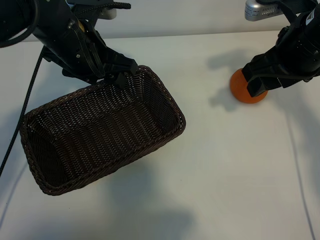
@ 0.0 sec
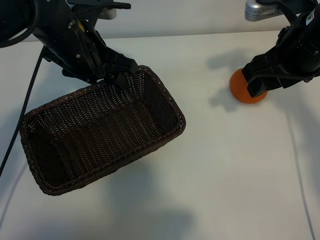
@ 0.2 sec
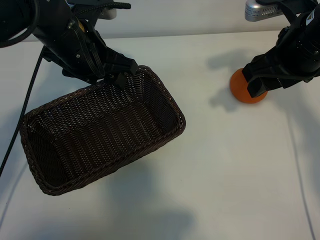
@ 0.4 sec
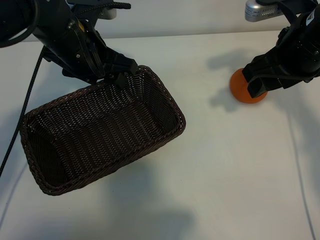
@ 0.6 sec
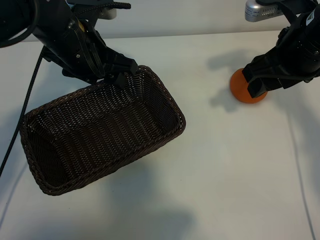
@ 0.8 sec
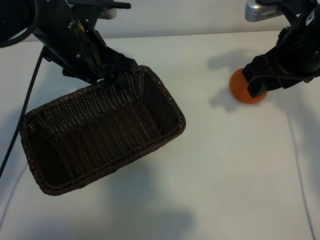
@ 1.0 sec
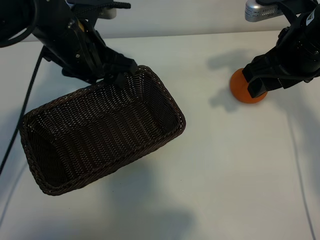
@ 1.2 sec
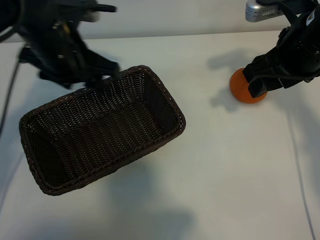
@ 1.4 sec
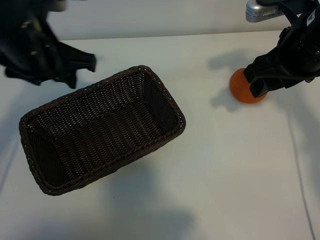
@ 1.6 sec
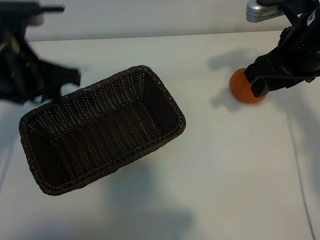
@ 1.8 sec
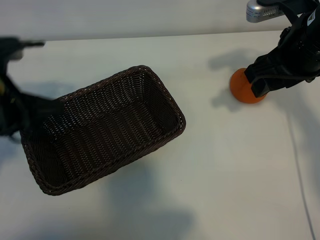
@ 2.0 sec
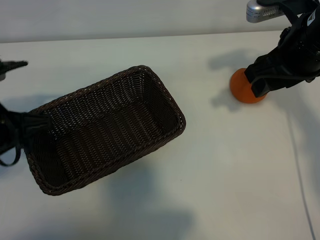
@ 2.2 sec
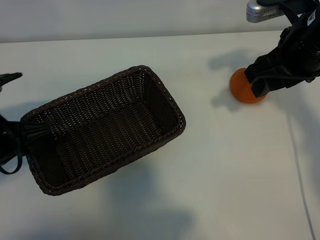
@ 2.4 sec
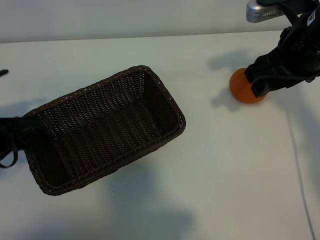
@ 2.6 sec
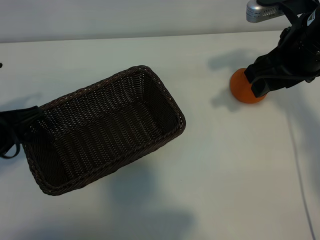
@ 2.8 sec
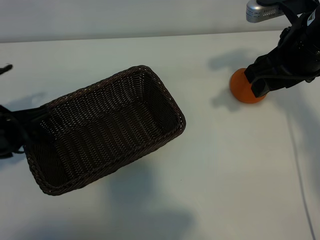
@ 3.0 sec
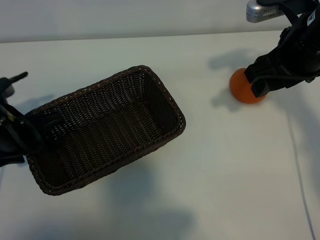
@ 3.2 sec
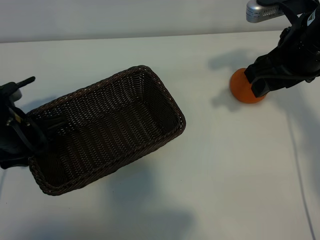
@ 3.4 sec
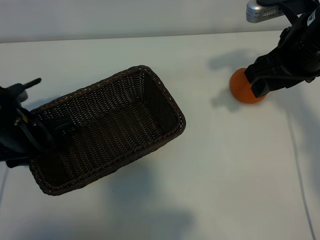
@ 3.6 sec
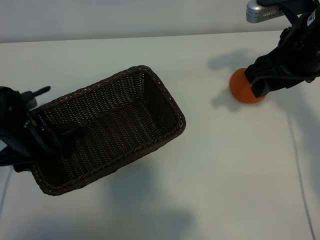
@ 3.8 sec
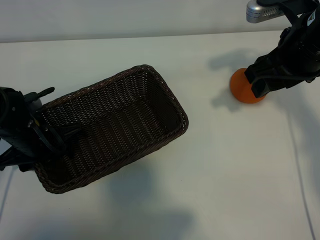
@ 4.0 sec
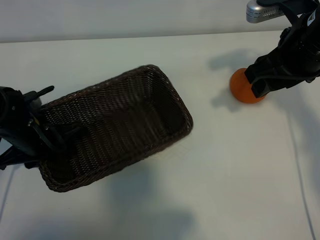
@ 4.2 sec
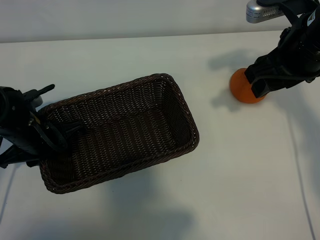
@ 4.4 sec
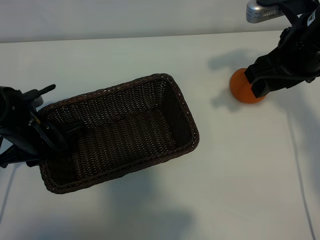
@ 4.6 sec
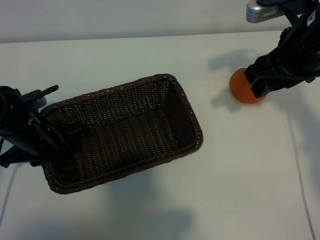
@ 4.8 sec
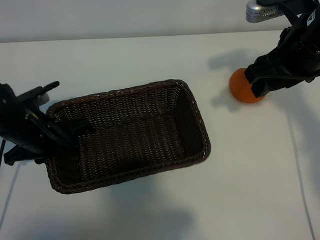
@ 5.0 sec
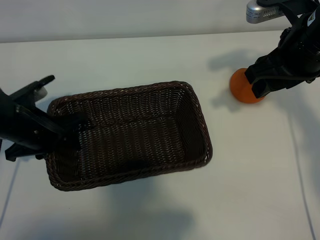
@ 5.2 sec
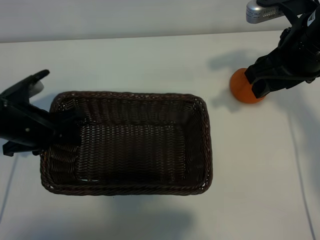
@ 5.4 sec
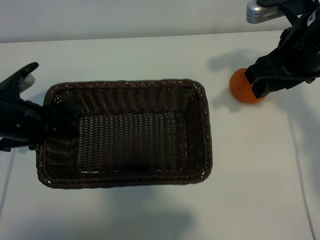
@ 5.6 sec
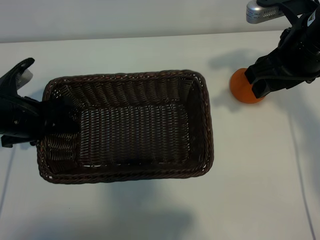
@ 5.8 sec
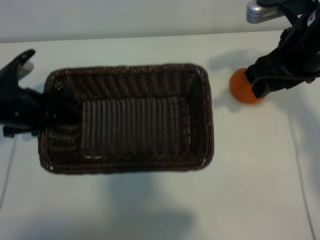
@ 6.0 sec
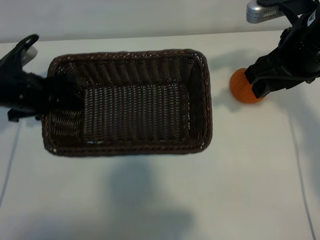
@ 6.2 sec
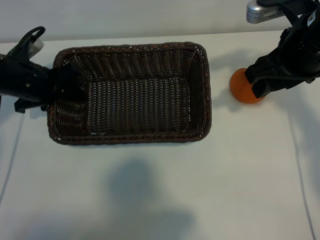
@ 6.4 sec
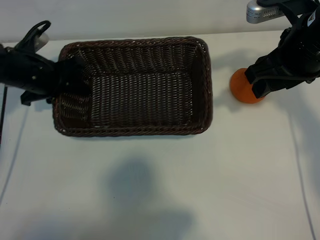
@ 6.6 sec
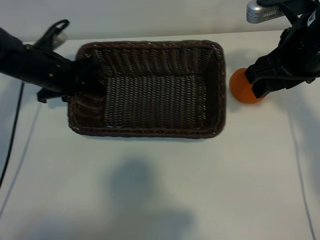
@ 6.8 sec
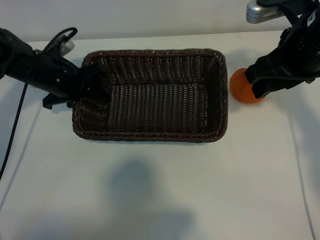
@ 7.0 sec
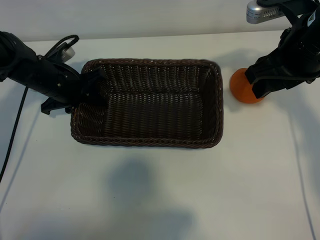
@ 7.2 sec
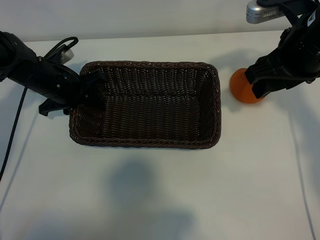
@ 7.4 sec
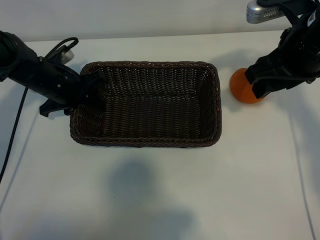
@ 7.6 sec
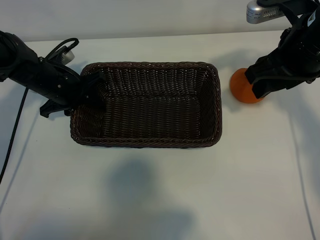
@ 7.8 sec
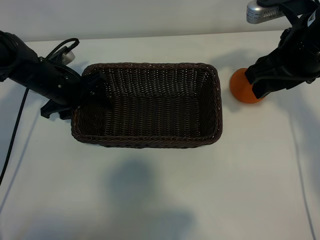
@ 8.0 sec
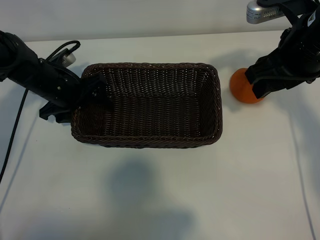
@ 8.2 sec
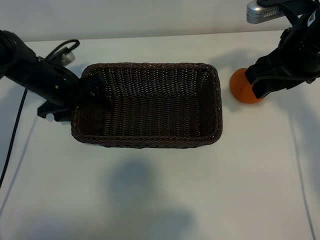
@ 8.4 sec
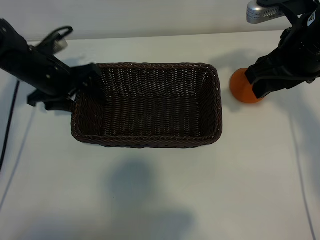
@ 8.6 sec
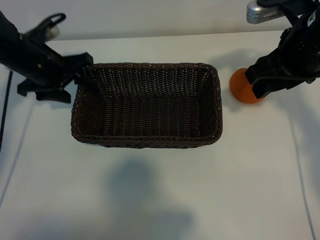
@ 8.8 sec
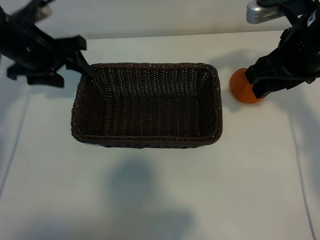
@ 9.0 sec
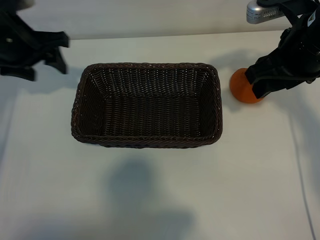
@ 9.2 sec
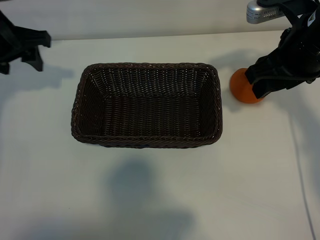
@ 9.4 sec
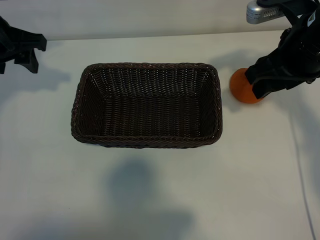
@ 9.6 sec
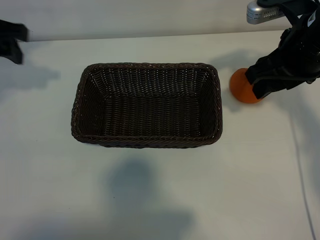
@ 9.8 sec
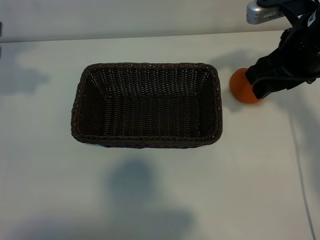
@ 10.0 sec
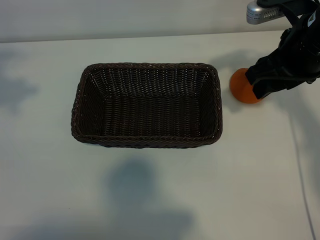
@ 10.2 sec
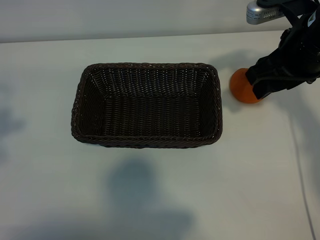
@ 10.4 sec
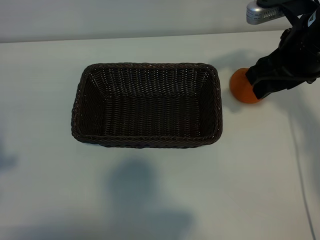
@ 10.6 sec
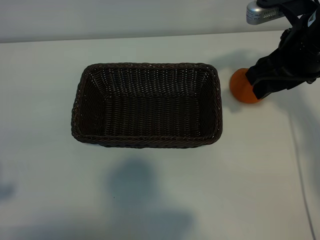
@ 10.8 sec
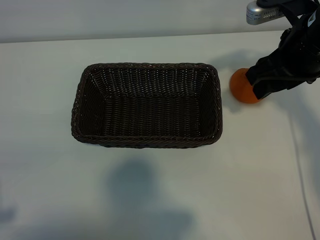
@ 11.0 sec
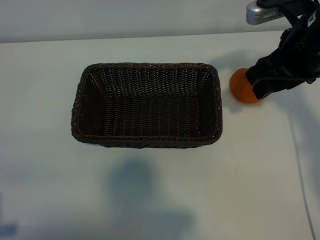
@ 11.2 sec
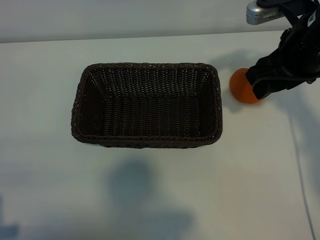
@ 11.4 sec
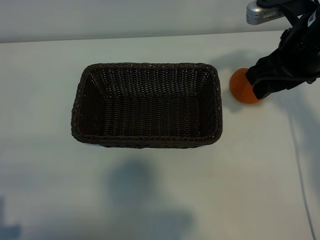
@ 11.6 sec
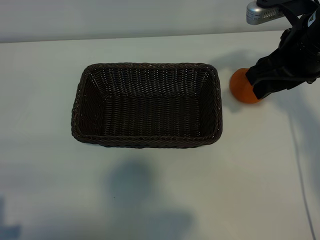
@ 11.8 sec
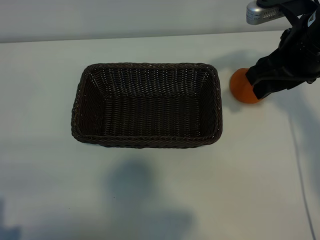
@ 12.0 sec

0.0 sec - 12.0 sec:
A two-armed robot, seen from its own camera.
Task of the whole recording: pick up the orange and put it into the basket.
Step, 1.2 sec - 4.2 sec: Grasp the basket with left gripper.
Step, 4.6 sec - 7.8 sec: Place the basket in the center of view with left gripper.

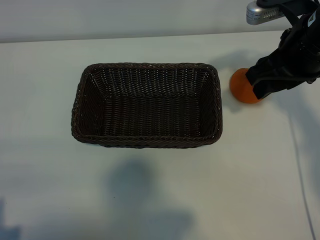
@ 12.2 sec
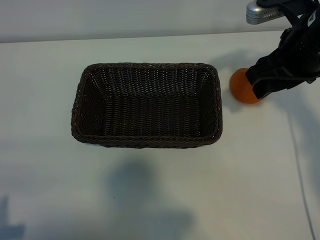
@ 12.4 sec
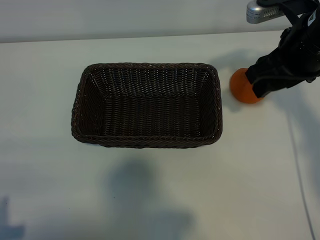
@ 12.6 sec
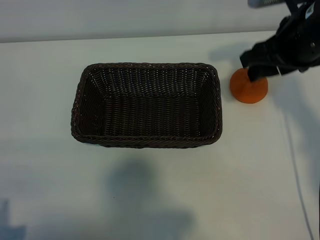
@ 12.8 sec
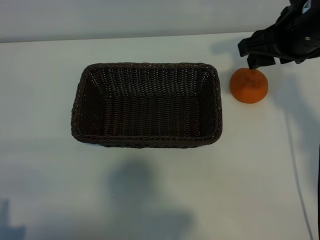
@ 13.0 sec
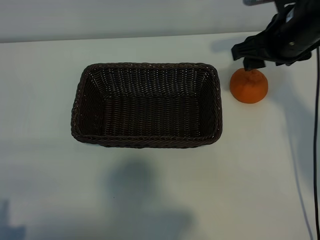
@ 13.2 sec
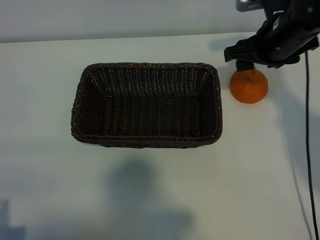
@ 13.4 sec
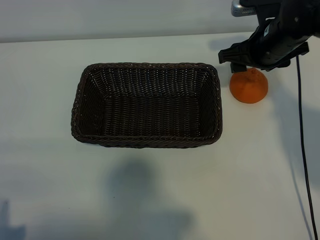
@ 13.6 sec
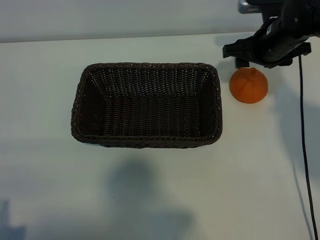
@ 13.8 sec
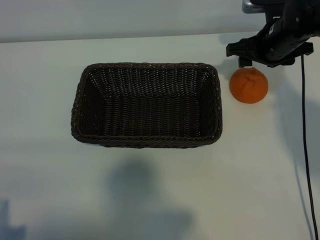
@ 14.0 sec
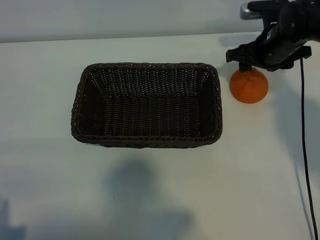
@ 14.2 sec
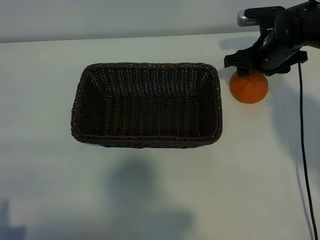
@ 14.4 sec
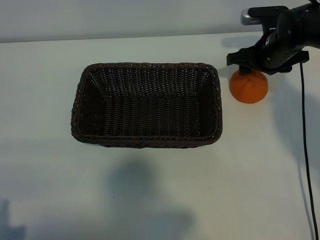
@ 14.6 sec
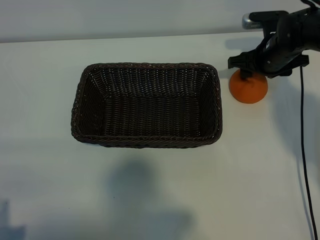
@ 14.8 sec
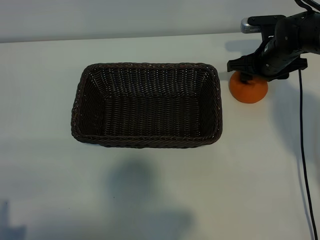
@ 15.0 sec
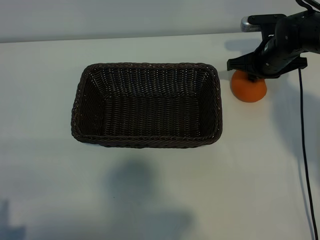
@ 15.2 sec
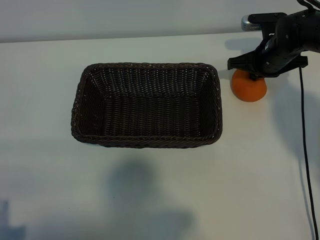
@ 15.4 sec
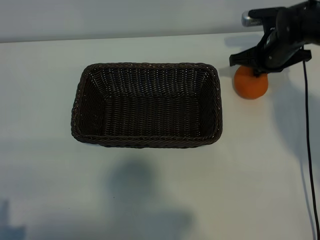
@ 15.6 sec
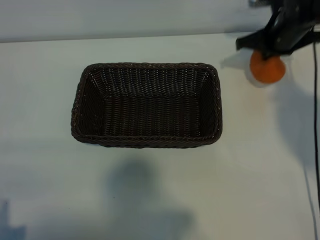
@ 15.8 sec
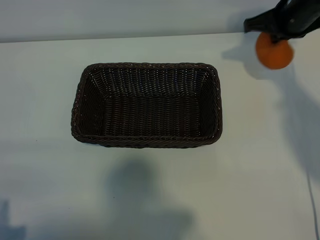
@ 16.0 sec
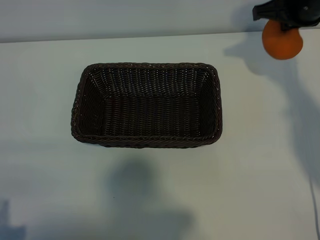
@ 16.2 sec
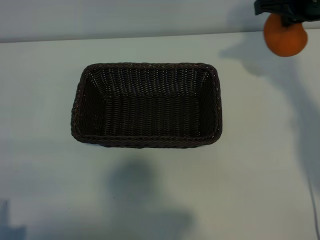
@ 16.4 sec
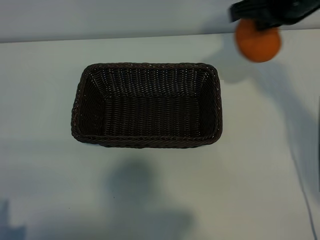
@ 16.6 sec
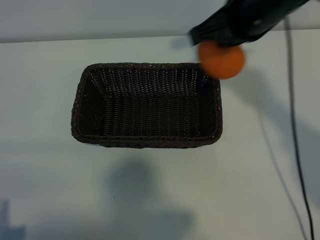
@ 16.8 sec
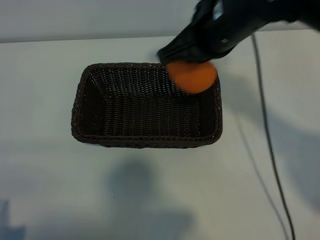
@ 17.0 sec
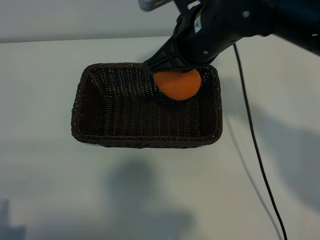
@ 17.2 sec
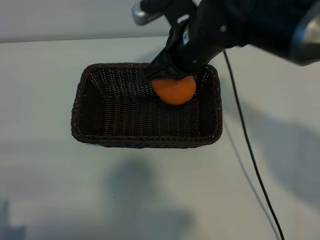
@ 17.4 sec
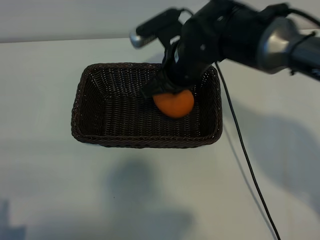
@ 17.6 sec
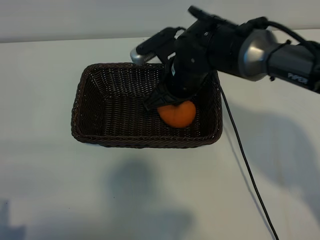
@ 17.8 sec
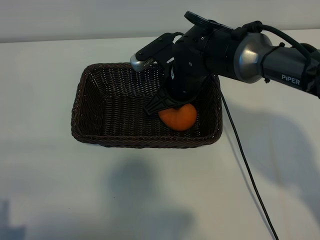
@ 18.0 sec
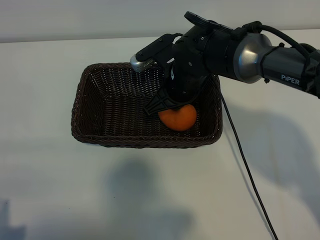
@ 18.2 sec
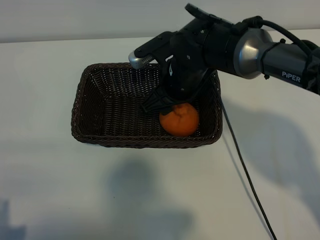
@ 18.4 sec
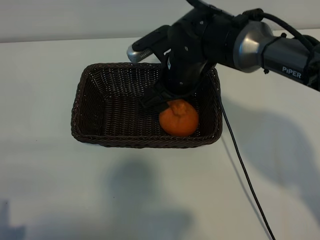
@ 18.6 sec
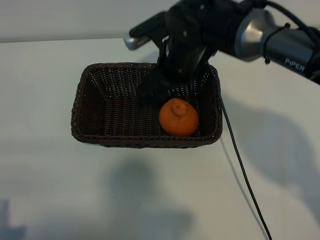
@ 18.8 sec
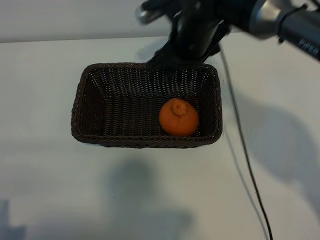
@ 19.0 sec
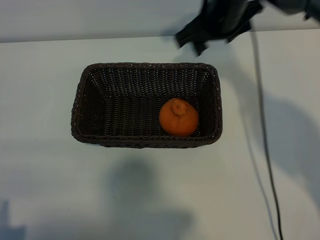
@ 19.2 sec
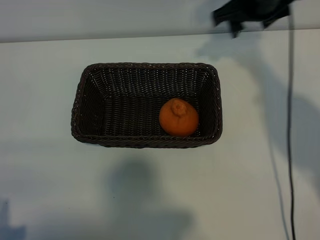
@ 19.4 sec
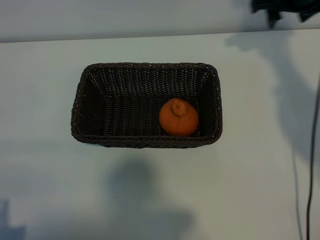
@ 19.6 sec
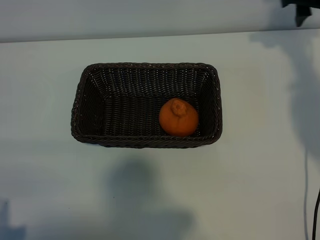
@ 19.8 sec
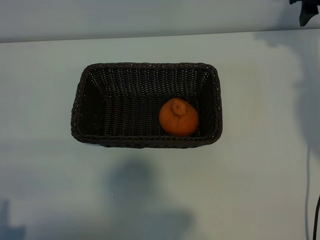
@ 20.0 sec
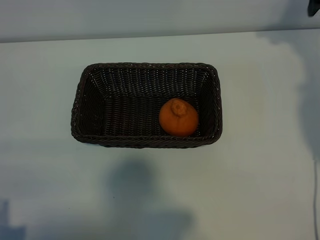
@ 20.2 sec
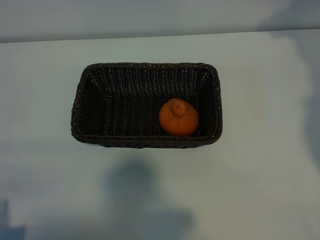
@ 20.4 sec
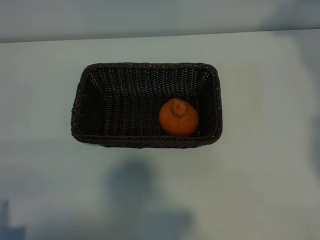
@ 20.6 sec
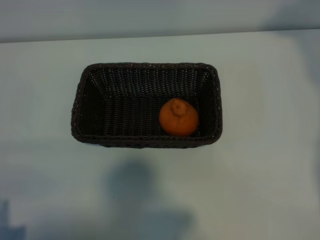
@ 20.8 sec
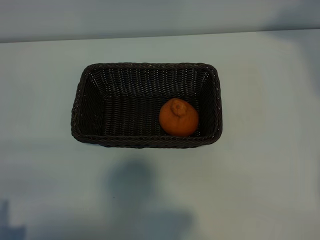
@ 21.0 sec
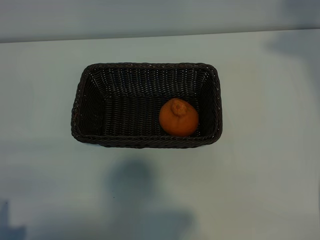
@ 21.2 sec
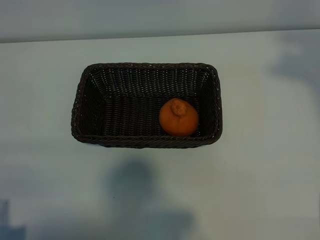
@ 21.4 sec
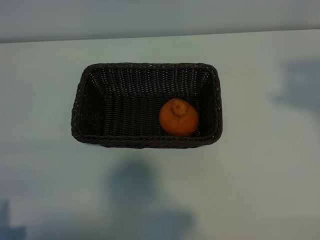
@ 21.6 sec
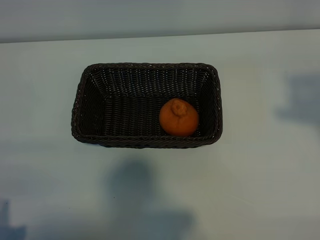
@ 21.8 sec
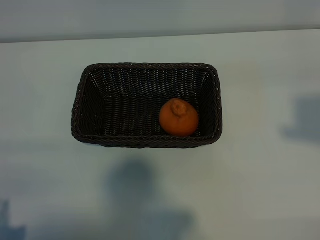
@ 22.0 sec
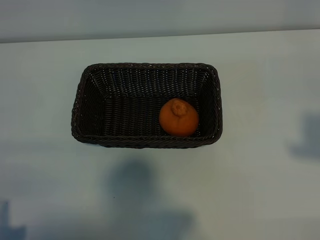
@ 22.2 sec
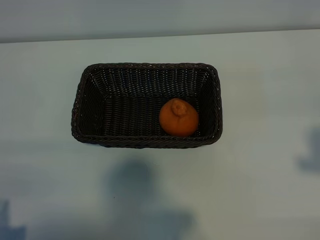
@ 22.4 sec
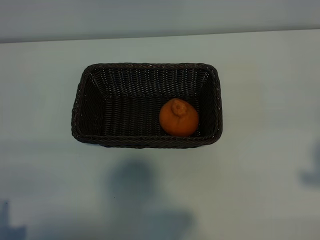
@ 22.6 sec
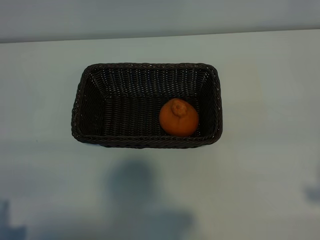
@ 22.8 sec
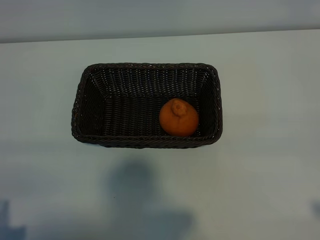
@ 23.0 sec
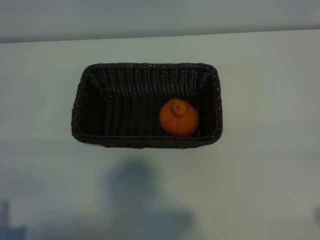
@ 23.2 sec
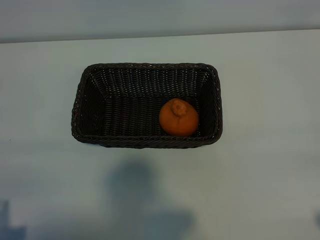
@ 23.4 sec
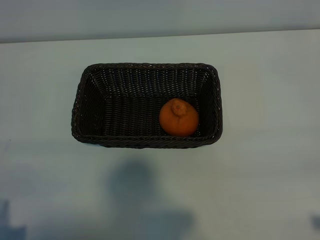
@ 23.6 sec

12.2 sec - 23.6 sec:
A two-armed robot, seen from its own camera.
Task of the whole recording: pick up the orange and put it into the basket.
Step, 12.2 sec - 15.2 sec: Grasp the orange with right gripper.
Step, 15.6 sec - 18.2 sec: Place the orange in the basket with right gripper.
